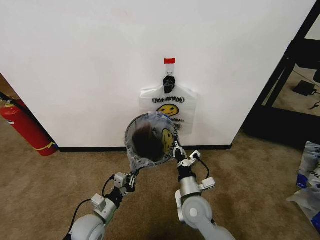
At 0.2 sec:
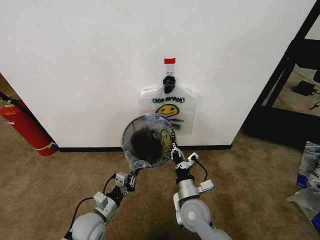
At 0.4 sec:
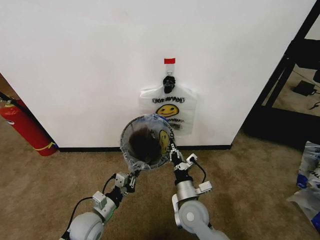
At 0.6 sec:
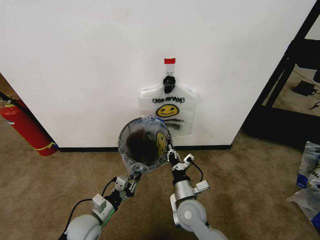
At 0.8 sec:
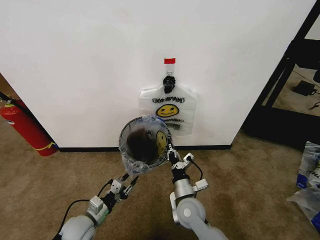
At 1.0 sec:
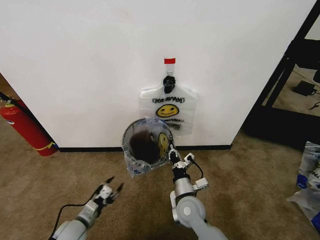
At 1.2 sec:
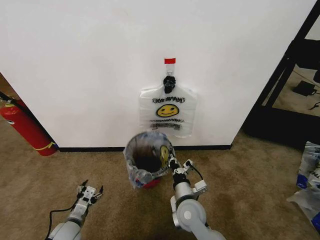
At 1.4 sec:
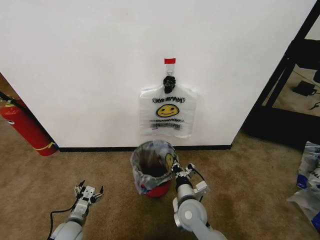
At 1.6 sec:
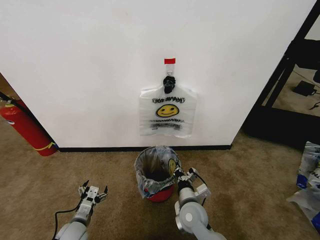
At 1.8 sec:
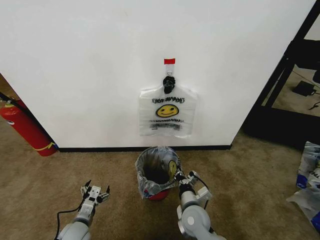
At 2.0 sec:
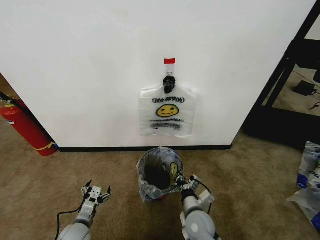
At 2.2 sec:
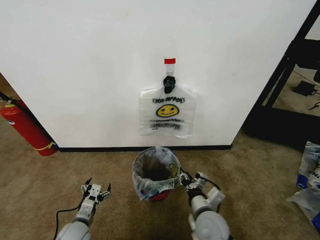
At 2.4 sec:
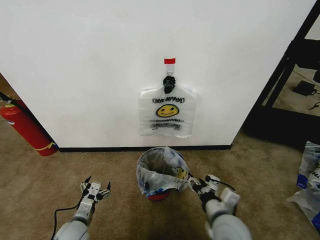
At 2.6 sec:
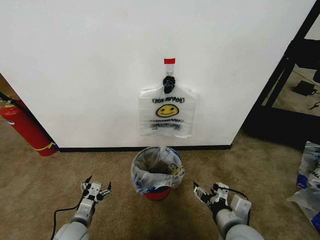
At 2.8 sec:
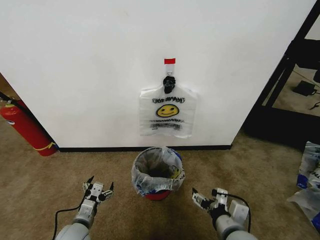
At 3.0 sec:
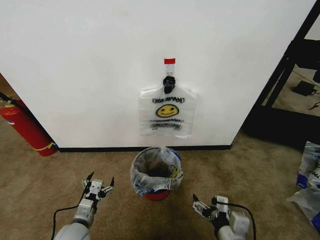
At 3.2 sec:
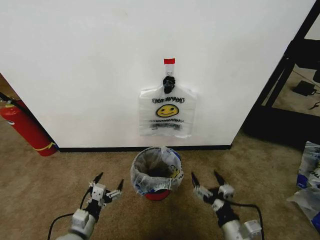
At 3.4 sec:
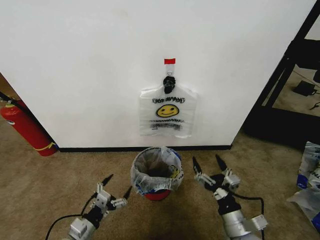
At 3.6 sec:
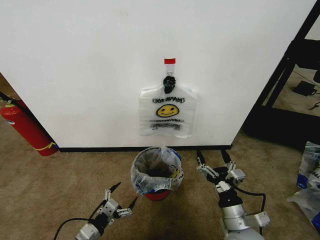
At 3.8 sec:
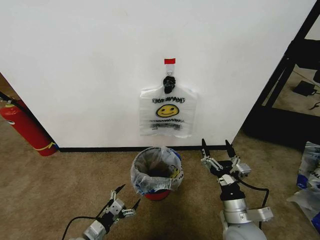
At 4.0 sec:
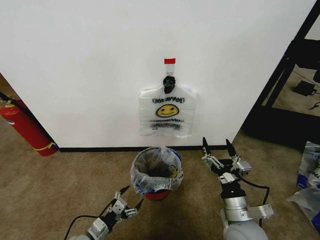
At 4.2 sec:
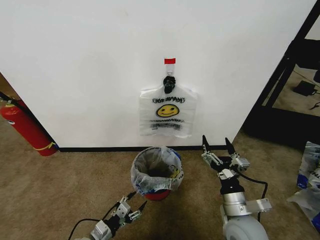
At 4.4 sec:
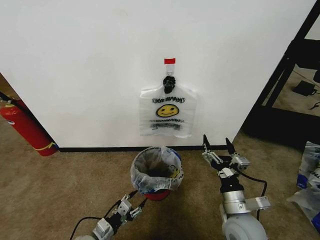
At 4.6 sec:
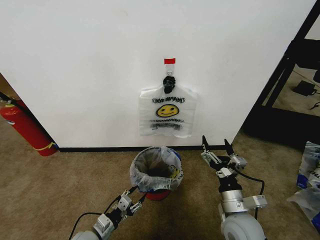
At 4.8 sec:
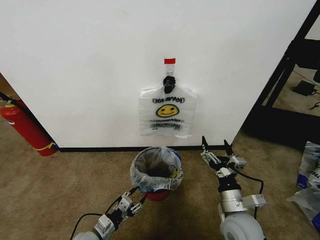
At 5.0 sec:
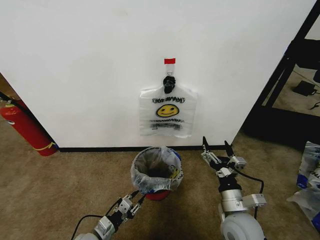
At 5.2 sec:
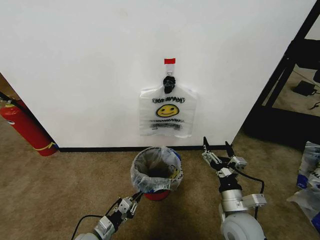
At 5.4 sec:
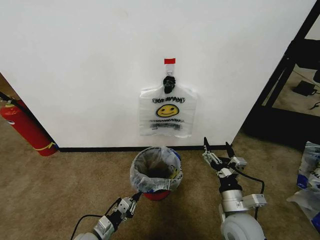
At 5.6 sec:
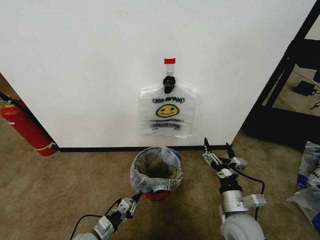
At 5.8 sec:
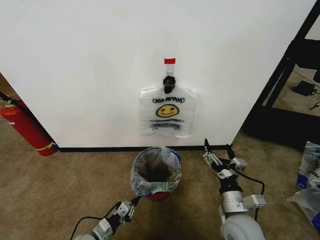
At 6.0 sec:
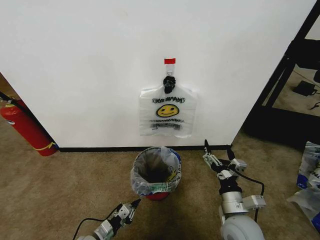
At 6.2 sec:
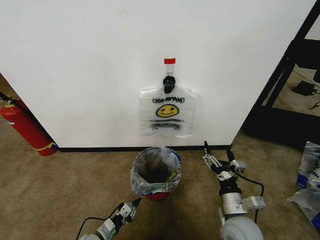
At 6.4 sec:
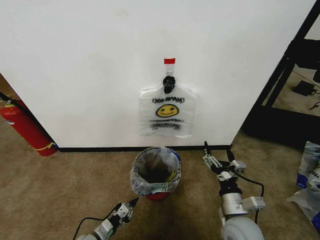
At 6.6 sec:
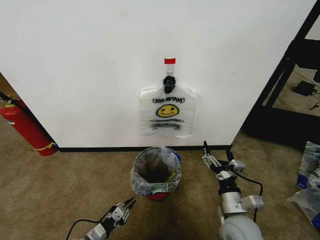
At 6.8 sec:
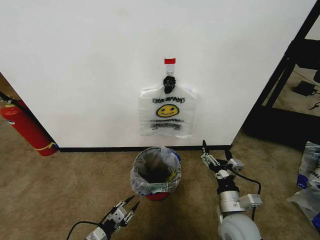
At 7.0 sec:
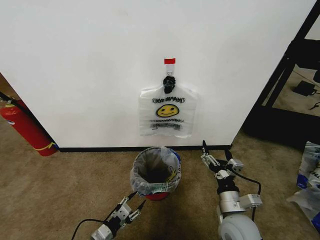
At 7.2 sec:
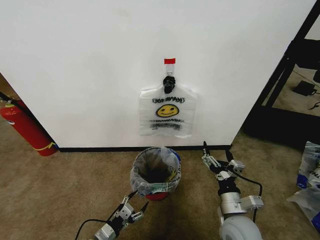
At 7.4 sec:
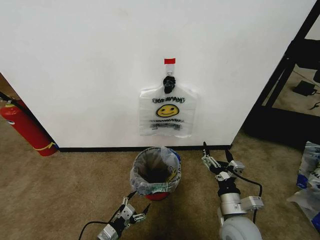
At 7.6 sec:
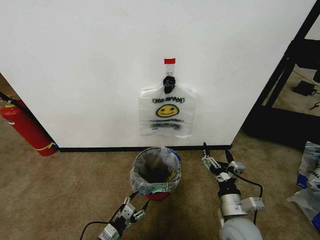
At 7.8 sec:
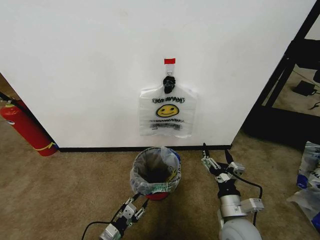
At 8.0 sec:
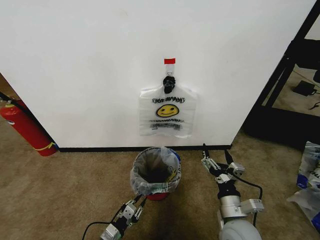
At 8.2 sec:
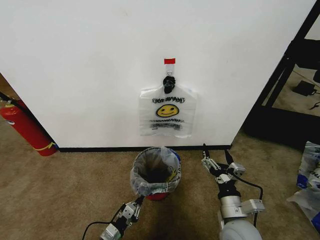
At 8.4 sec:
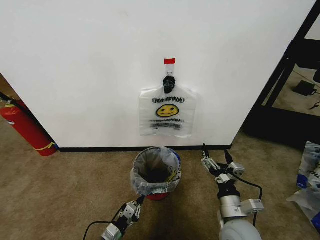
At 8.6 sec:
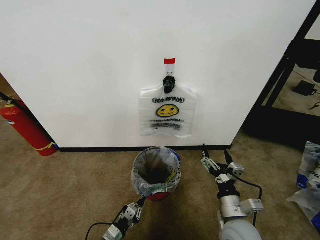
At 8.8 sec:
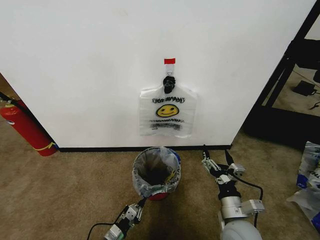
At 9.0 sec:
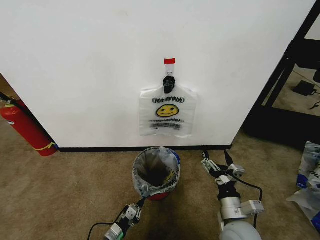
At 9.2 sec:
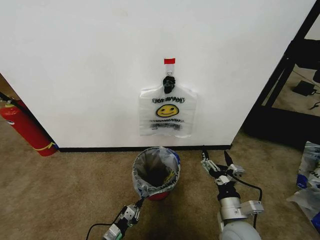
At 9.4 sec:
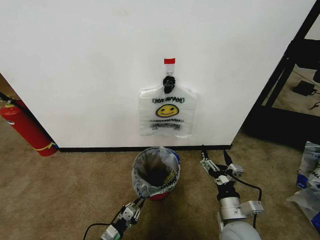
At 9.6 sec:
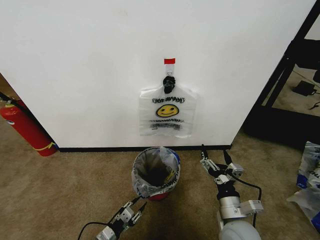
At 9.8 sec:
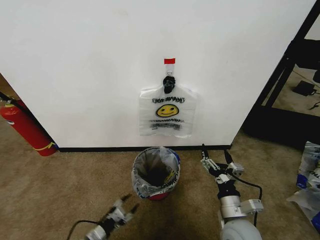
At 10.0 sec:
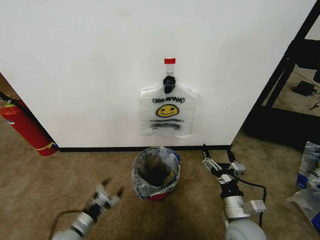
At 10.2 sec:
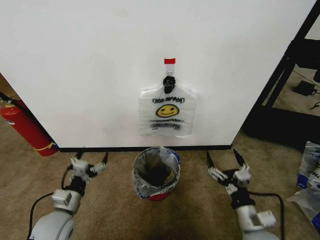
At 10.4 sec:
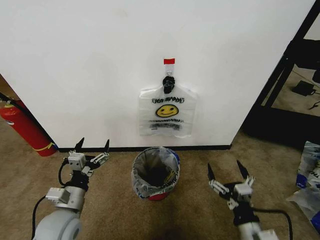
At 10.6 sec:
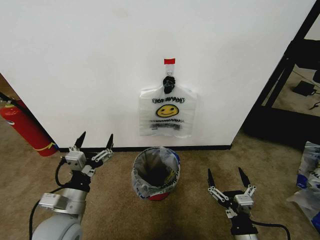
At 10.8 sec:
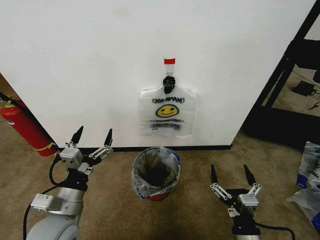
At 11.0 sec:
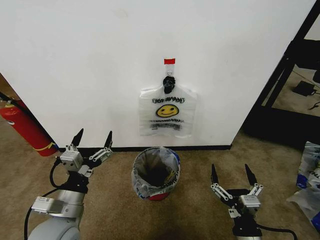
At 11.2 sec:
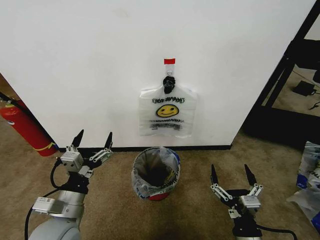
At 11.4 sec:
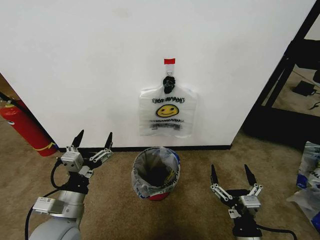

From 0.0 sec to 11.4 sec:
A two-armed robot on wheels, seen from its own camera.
Task of the whole recording: Pick up the garbage bag from the wall and place it over the trash bin.
From 0.0 sec to 1.4 sec: The left gripper moves to the left and downward, roughly 10 cm, and opens its fingers.
From 1.4 sec to 2.8 sec: The left gripper ends up some 5 cm from where it was. Meanwhile the right gripper moves backward, to the right and upward, about 15 cm, and opens its fingers.
From 2.8 sec to 4.2 sec: The left gripper ends up some 5 cm from where it was.
From 4.2 sec to 5.6 sec: The left gripper closes up.
From 5.6 sec to 7.2 sec: The left gripper opens up.
From 7.2 sec to 8.6 sec: The left gripper closes.
From 8.6 sec to 10.0 sec: The left gripper moves to the left and upward, roughly 10 cm, and opens.
From 10.0 sec to 11.4 sec: The left gripper goes approximately 20 cm upward; the right gripper shifts about 10 cm backward.
